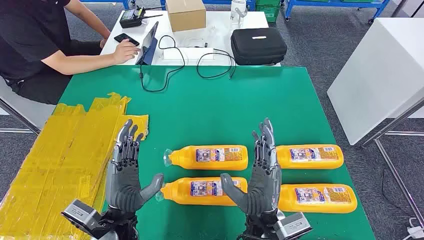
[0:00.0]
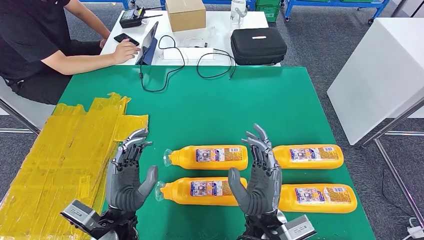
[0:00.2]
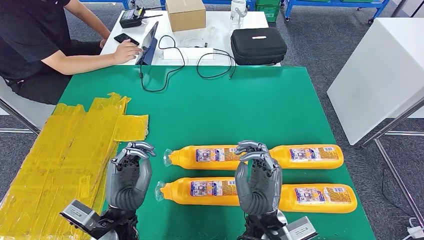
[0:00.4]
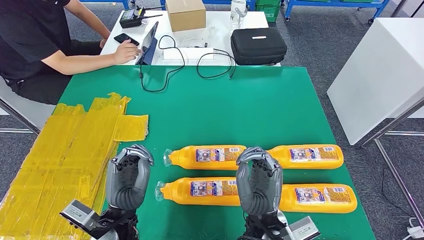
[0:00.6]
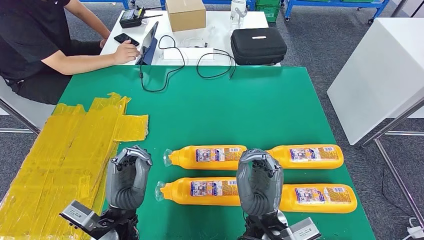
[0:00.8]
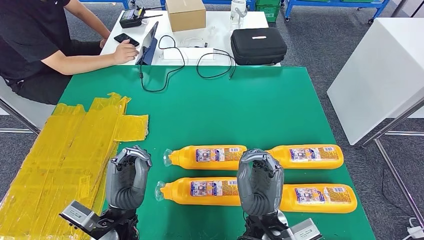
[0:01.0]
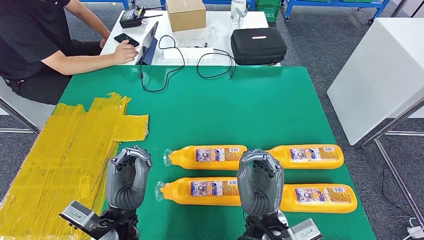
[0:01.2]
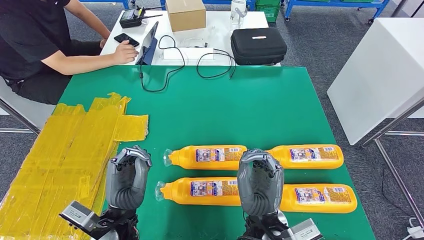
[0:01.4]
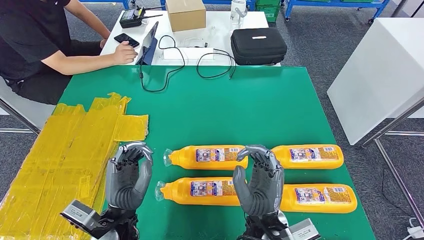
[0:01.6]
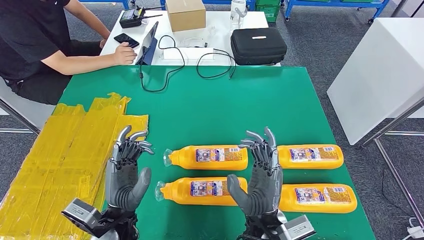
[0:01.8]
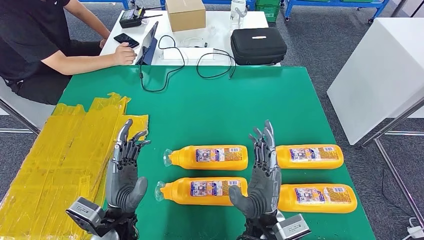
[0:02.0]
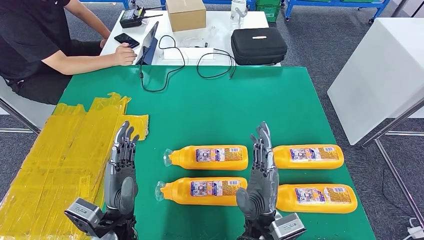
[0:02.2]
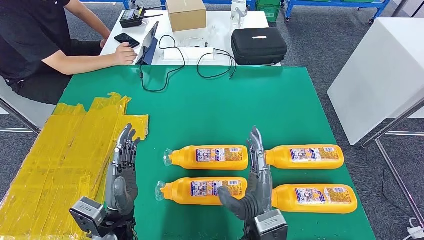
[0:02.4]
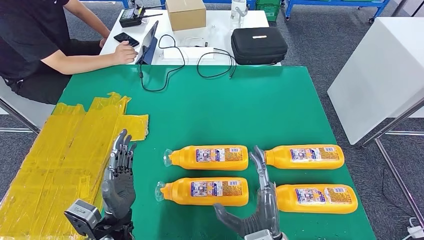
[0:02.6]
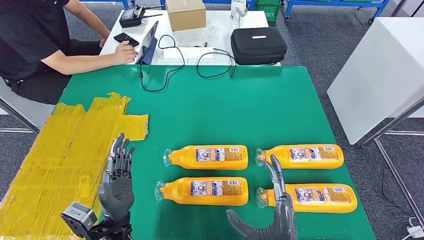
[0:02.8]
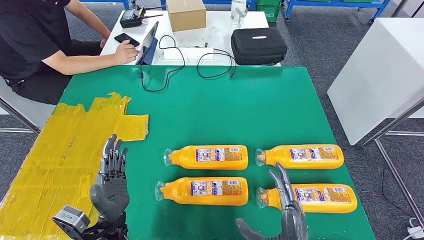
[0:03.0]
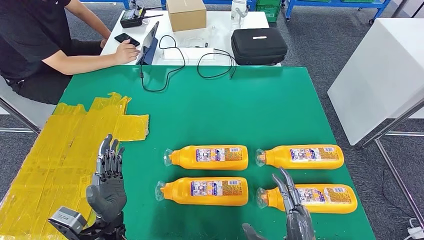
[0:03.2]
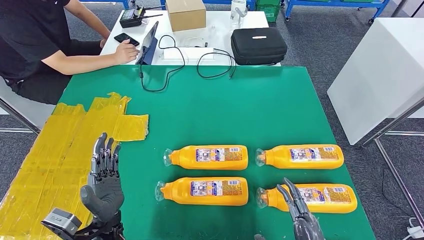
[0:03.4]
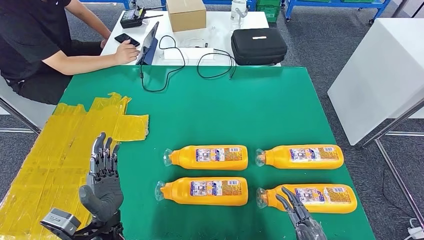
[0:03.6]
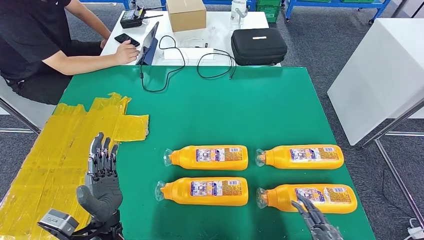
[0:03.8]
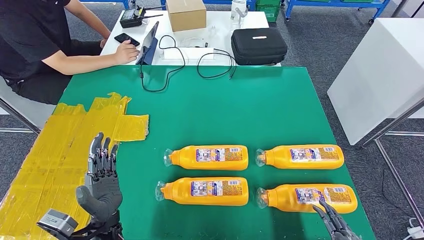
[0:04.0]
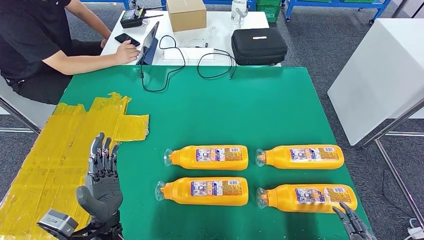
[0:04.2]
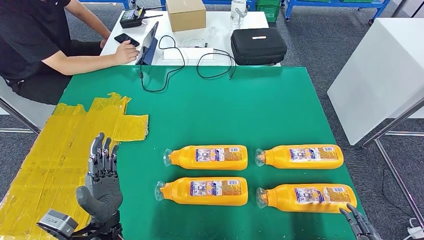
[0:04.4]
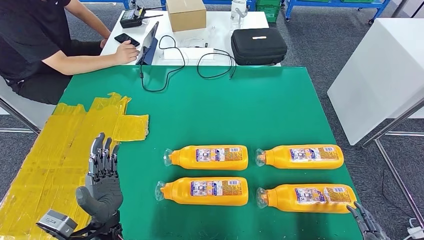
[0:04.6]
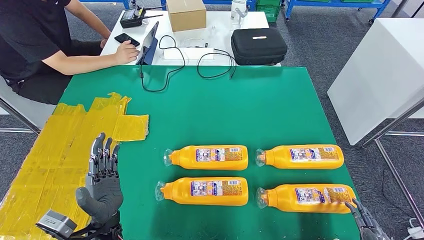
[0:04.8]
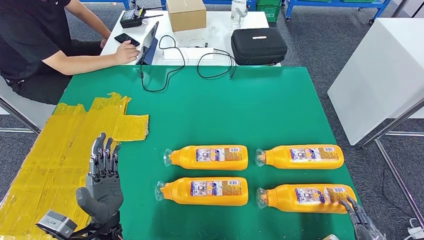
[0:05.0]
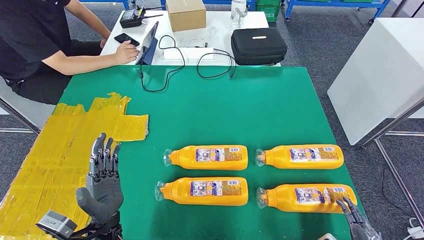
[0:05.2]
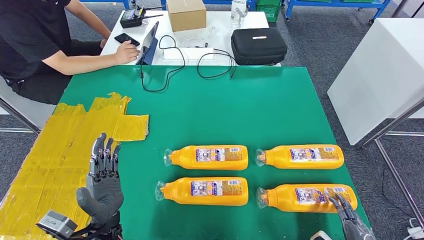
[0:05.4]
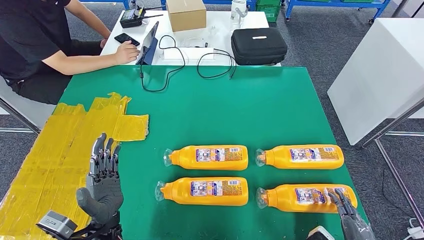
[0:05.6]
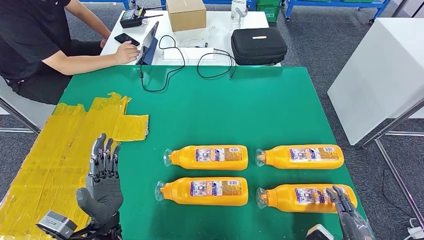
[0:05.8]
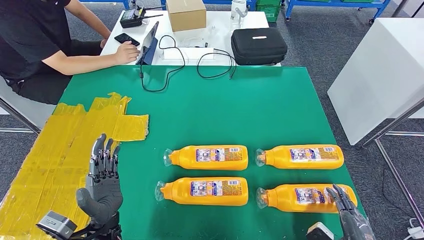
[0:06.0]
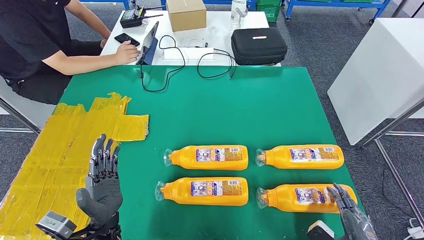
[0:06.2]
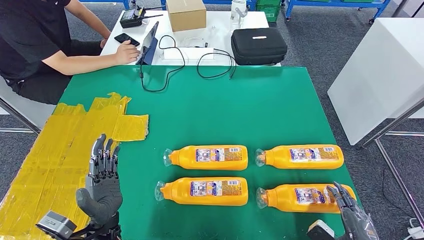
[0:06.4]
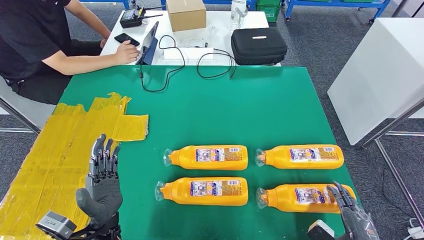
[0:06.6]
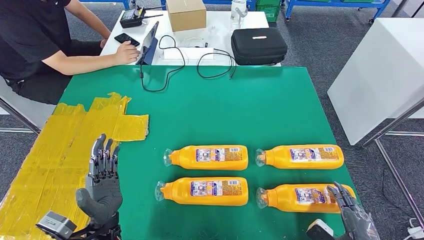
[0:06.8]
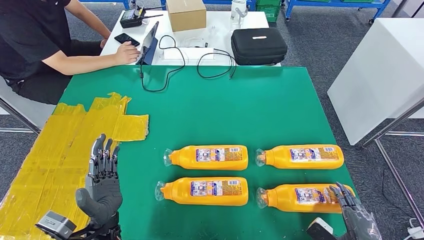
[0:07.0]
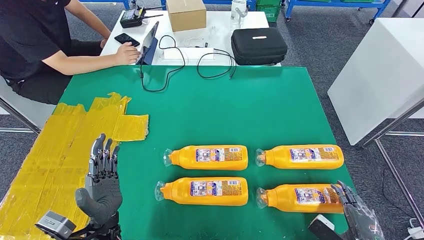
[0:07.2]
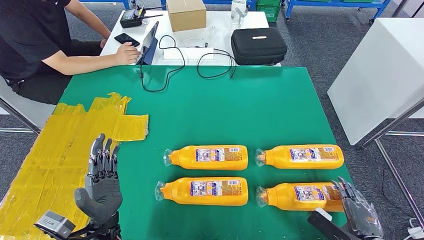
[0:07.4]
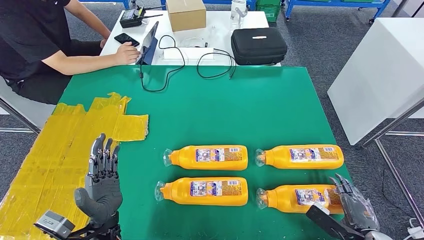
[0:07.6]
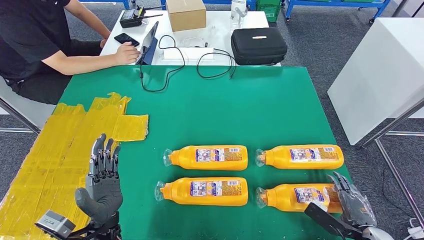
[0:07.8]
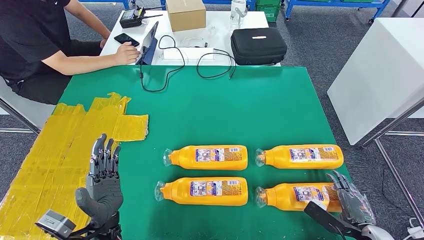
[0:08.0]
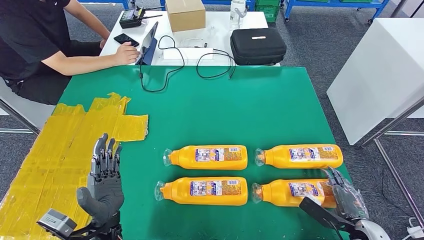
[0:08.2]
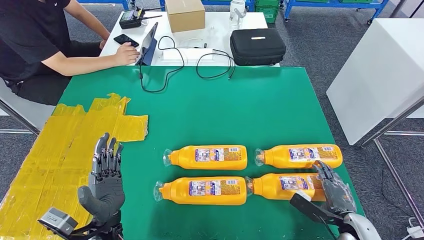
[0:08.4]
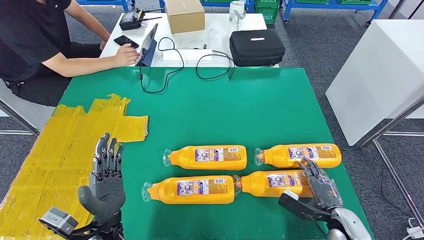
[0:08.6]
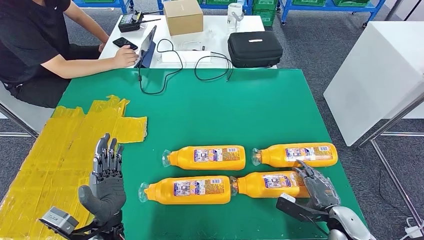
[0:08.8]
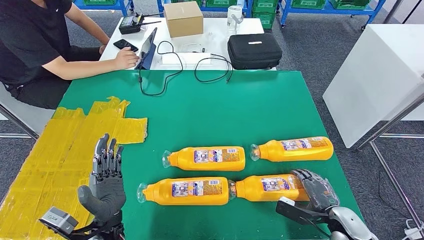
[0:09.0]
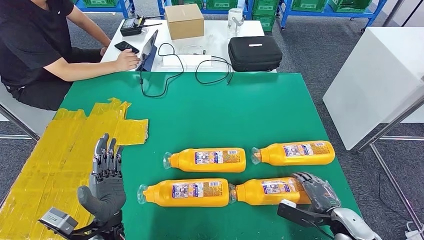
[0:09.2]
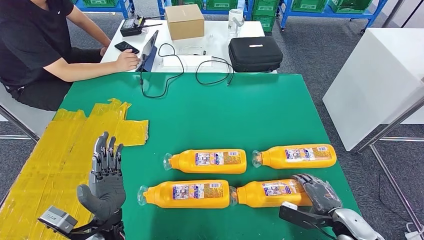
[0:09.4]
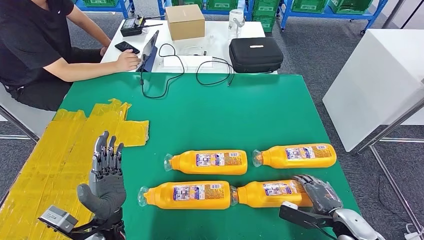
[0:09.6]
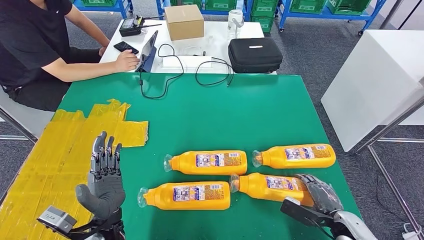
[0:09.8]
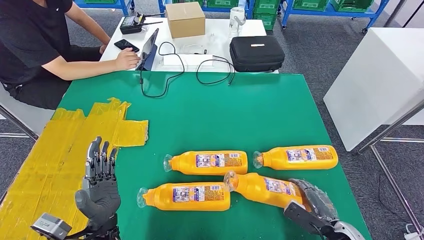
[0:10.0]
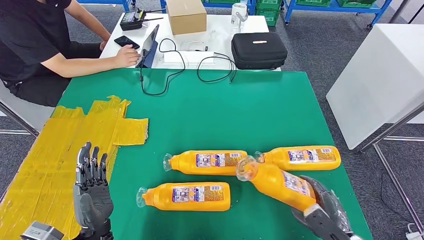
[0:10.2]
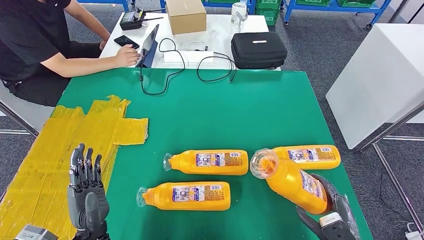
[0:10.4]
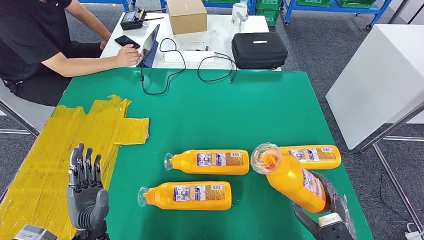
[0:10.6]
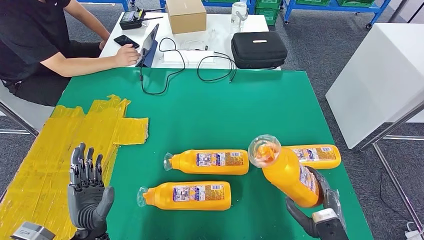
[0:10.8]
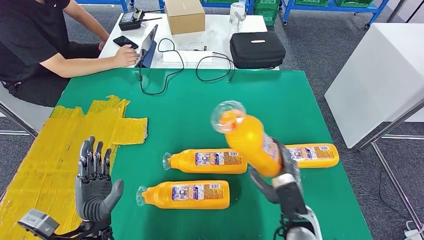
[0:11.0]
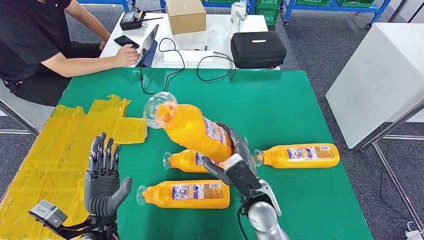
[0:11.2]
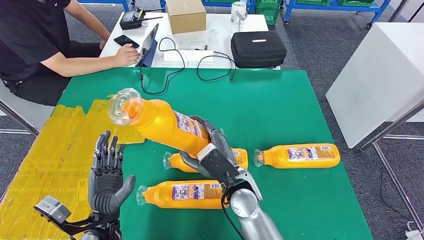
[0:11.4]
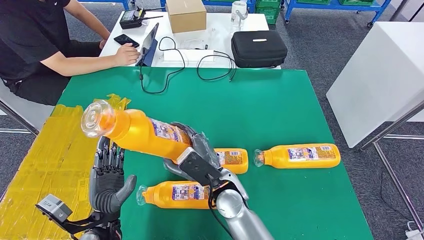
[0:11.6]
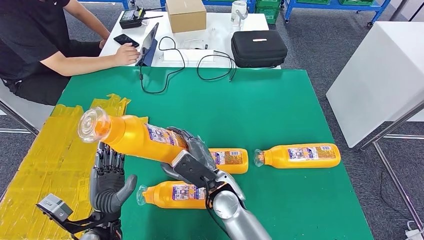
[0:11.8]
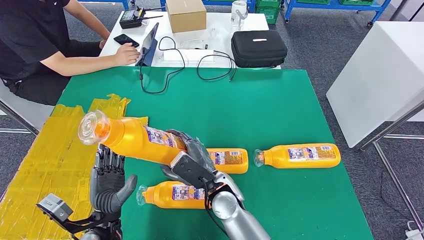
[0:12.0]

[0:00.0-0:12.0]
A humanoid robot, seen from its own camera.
Step, 0:00.0 to 0:11.4: Take the fast-moving consumer goods bottle from the table.
0:01.6 to 0:03.0: The right hand goes about 10 cm backward and to the right; the left hand changes place by approximately 5 cm.
0:03.0 to 0:04.4: The right hand heads to the right, covering roughly 20 cm.
0:04.4 to 0:06.0: The right hand is displaced forward by roughly 5 cm.
0:06.0 to 0:07.6: The right hand travels forward by roughly 5 cm.

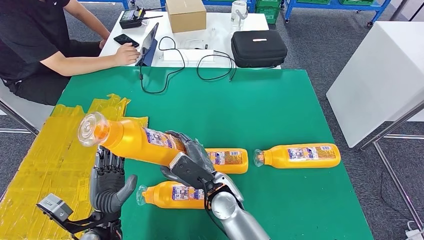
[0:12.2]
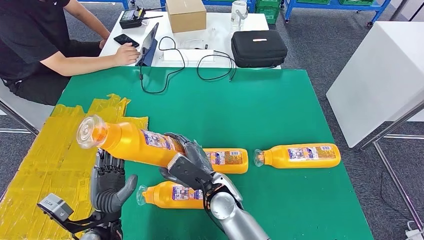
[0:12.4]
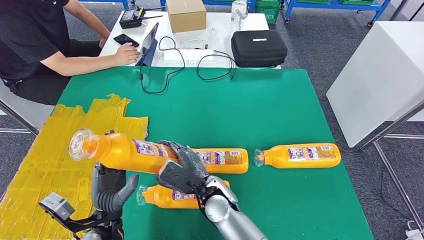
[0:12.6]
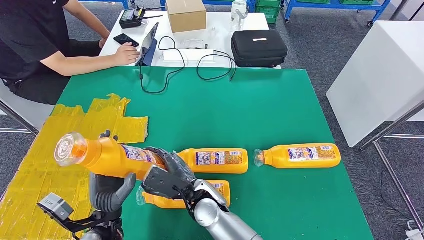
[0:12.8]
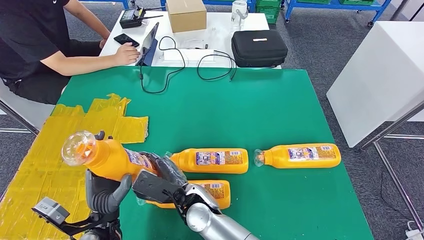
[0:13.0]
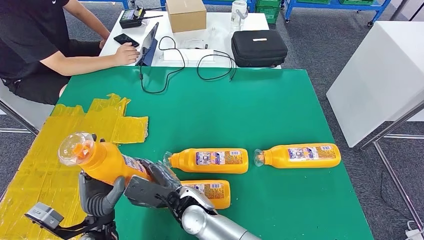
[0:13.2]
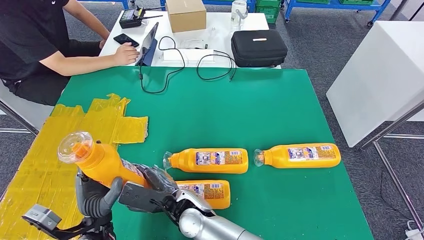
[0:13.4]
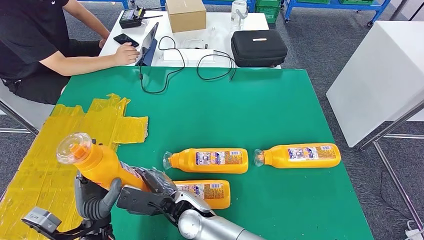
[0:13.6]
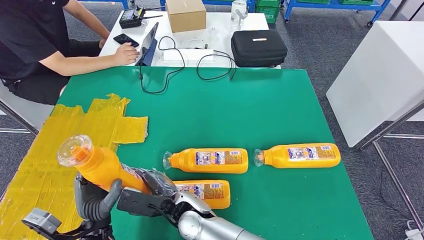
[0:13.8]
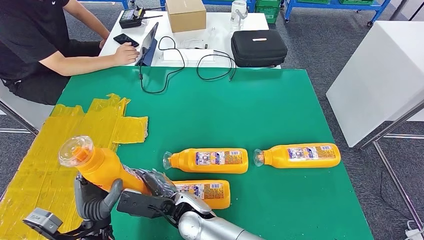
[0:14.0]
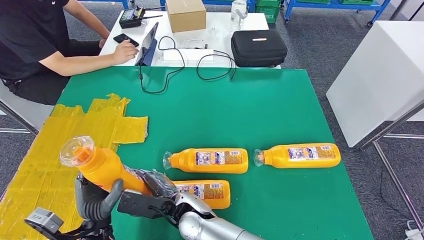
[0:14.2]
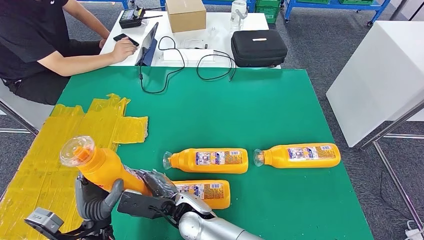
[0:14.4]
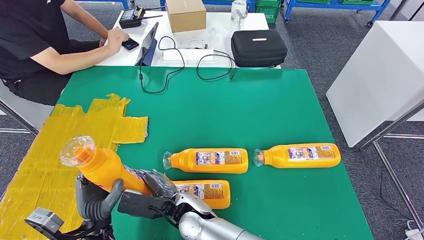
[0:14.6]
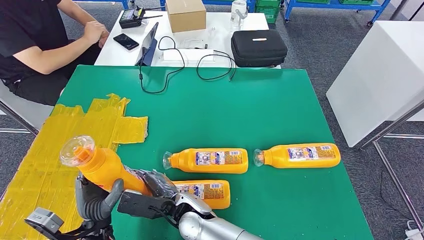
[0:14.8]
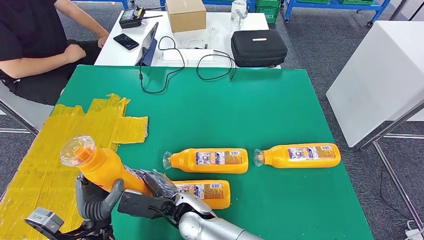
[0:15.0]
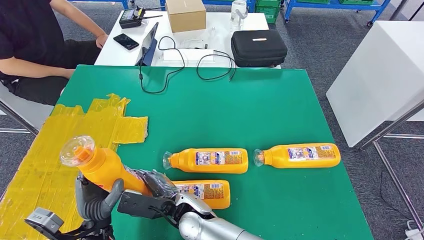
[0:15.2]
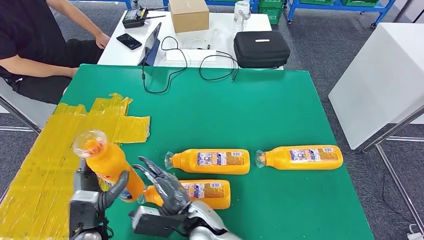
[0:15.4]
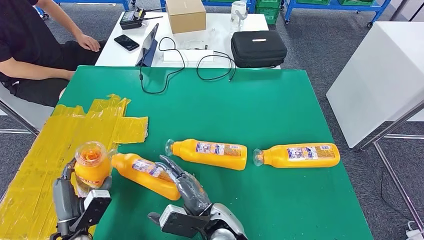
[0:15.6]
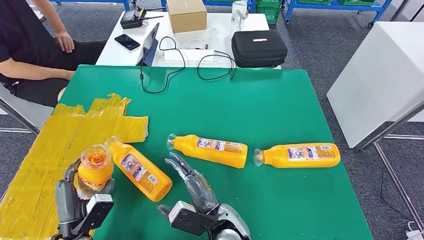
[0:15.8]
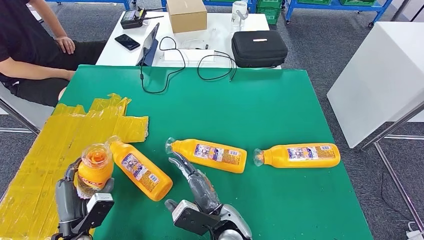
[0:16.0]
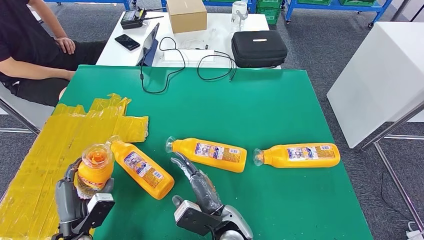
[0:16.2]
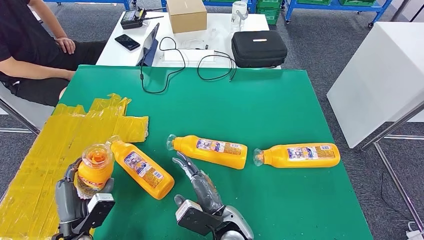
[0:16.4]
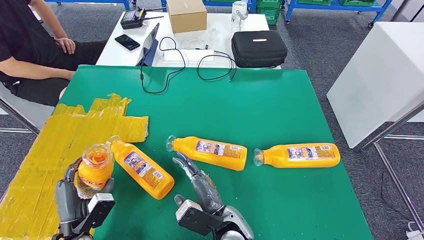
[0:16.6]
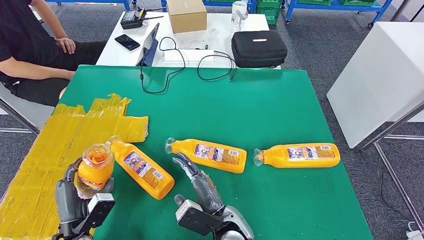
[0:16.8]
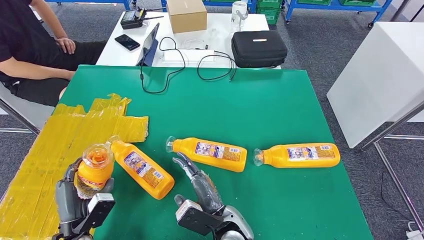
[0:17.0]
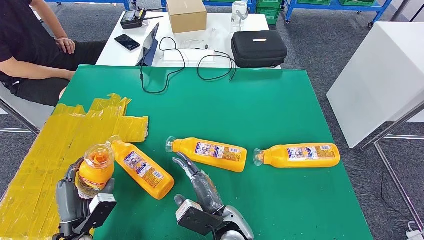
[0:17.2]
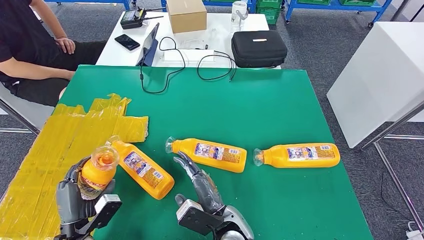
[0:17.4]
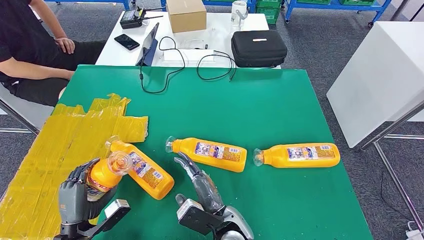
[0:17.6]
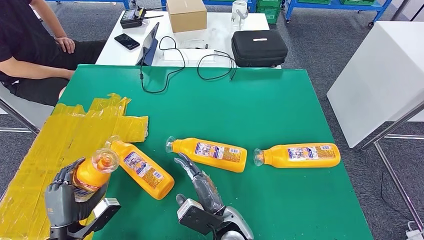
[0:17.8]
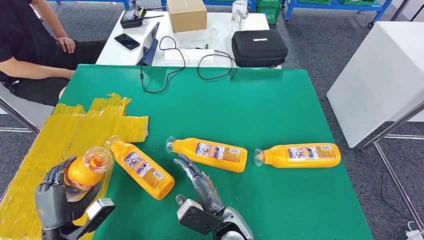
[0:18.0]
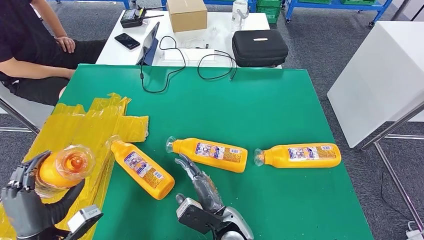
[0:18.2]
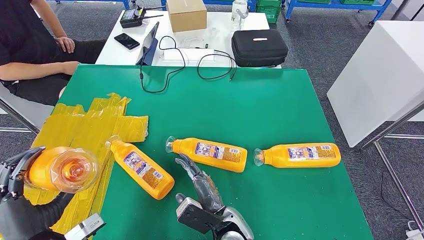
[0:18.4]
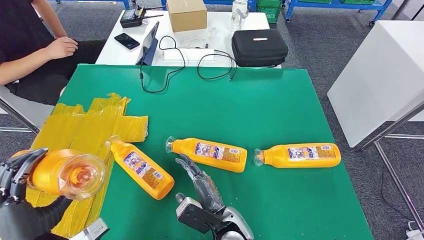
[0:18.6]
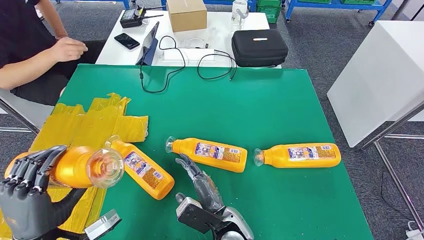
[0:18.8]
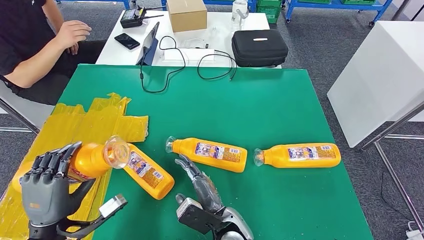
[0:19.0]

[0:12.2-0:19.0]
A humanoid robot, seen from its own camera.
0:12.2 to 0:13.6: The right hand heads to the left, covering roughly 10 cm.
0:13.6 to 0:15.0: Neither hand changes place.
0:16.2 to 0:17.6: The hands move only a little.
0:17.6 to 0:19.0: The left hand is displaced upward by approximately 10 cm.
